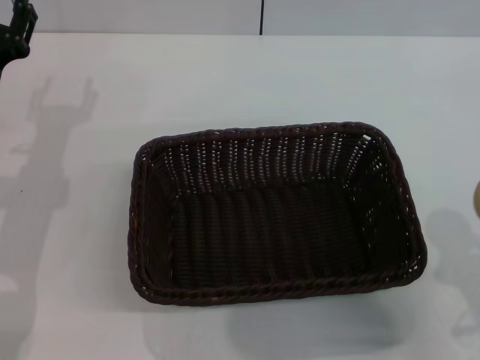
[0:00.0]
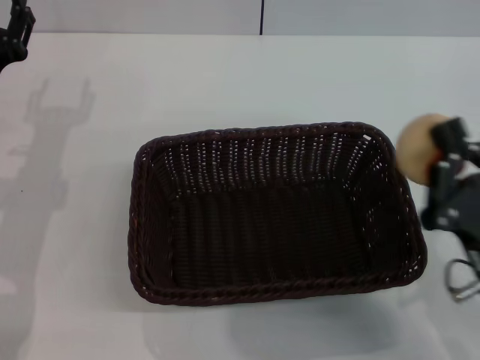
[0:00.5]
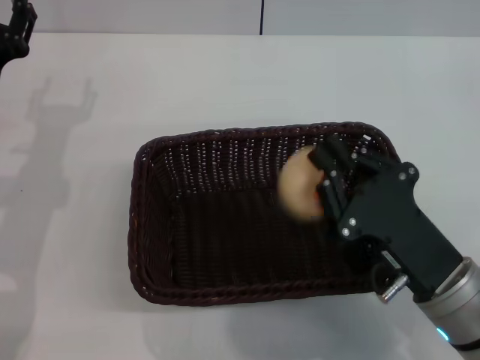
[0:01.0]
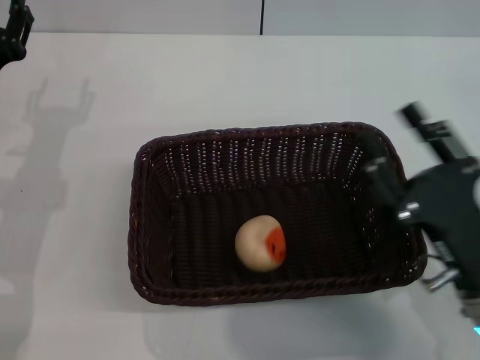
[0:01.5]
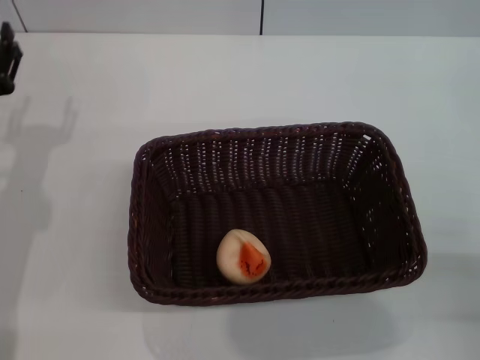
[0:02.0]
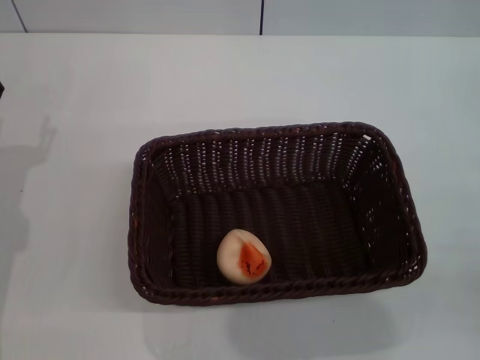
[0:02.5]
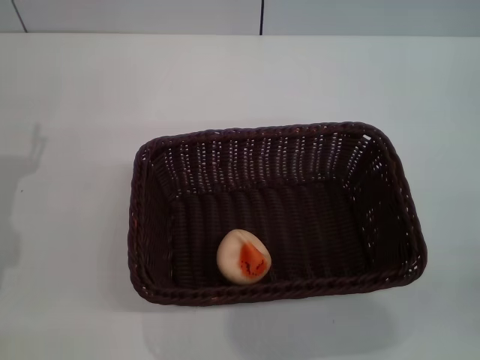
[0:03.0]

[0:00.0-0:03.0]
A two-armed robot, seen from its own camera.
Step, 0:00.0 to 0:01.0: Place the egg yolk pastry into the basket with the right gripper.
0:00.0 to 0:01.5: The right gripper is displaced forward by roughly 5 cm, and opens up.
0:01.5 to 0:03.0: The left gripper moves backward, approximately 5 cm, while the right gripper moves to the right and backward, some 15 cm, and opens its fingers.
